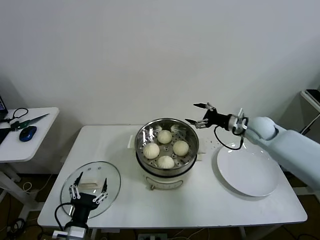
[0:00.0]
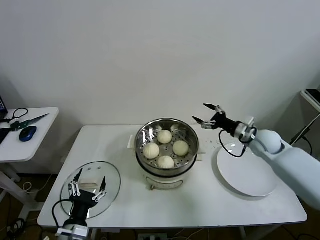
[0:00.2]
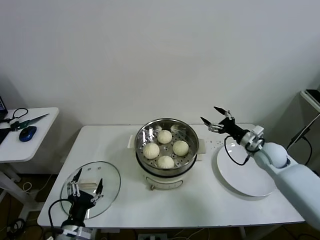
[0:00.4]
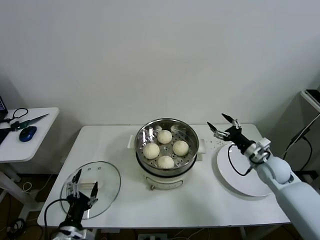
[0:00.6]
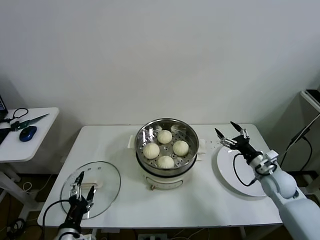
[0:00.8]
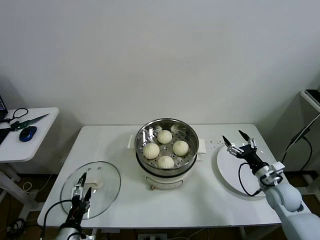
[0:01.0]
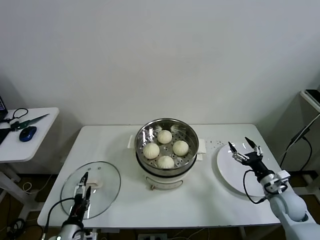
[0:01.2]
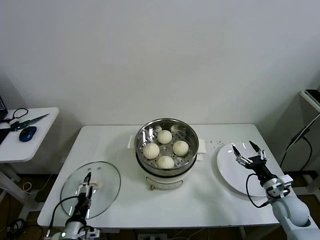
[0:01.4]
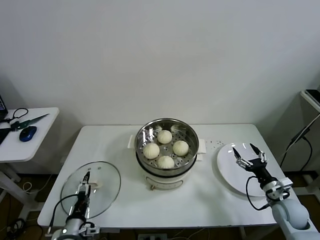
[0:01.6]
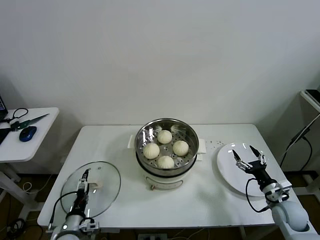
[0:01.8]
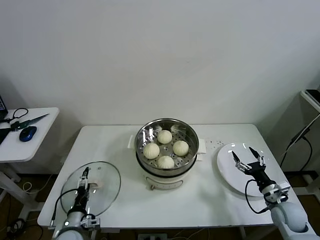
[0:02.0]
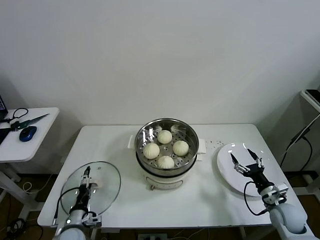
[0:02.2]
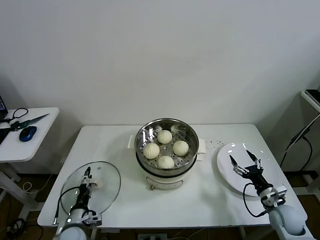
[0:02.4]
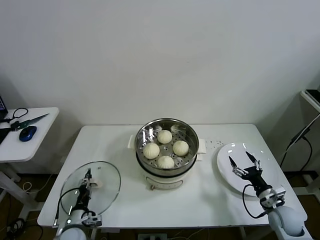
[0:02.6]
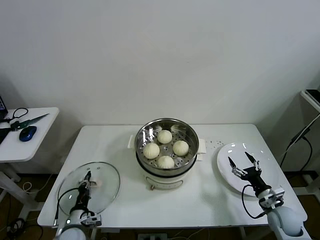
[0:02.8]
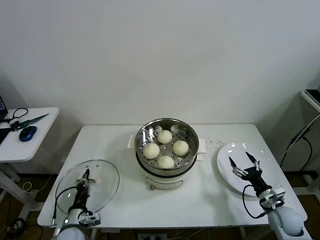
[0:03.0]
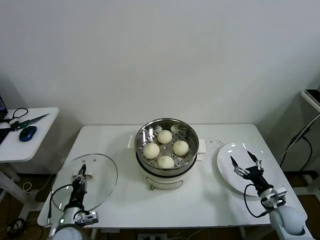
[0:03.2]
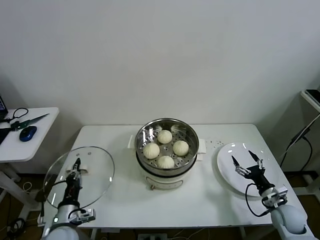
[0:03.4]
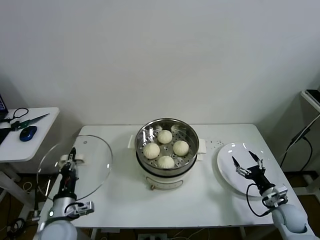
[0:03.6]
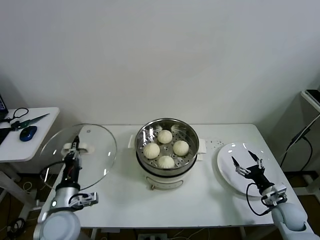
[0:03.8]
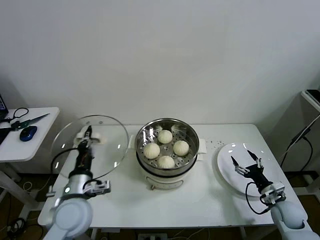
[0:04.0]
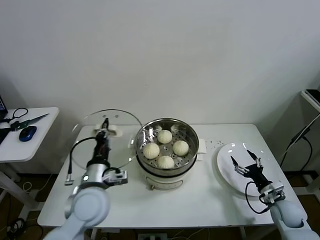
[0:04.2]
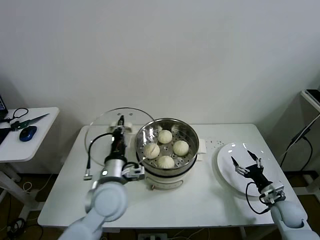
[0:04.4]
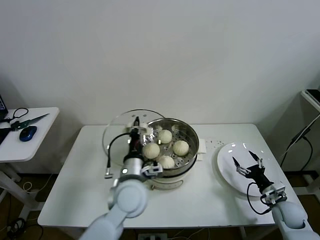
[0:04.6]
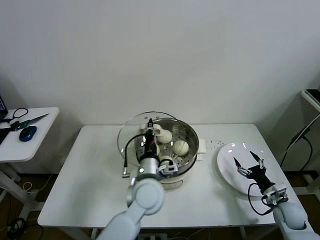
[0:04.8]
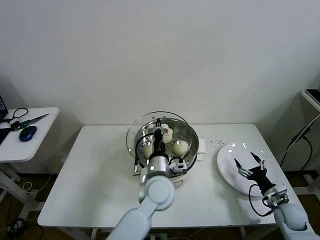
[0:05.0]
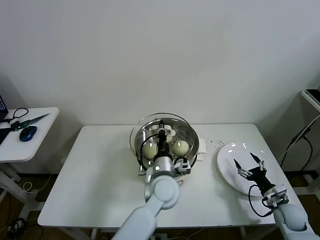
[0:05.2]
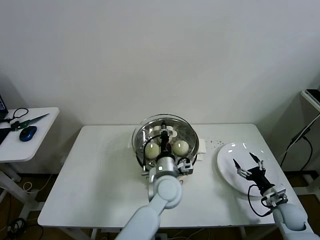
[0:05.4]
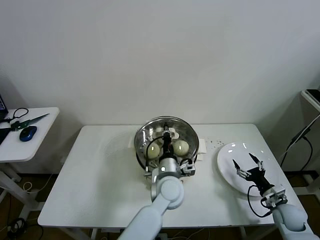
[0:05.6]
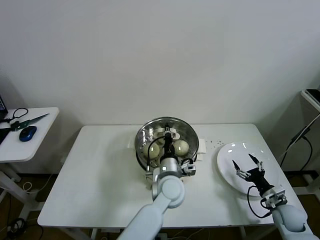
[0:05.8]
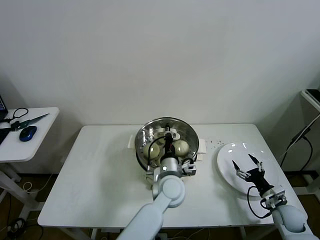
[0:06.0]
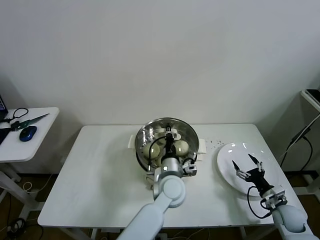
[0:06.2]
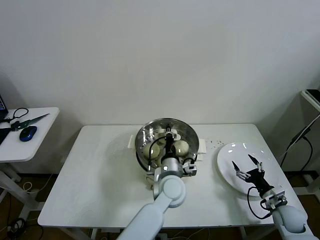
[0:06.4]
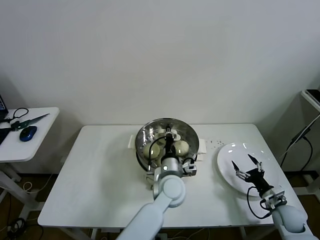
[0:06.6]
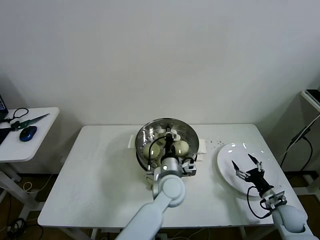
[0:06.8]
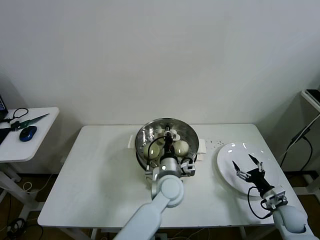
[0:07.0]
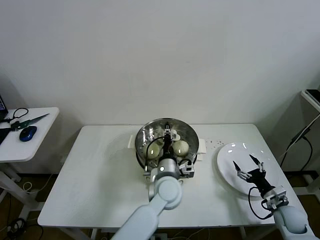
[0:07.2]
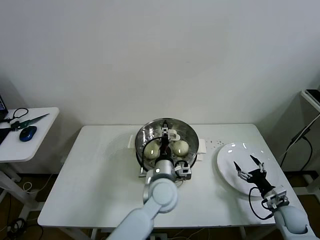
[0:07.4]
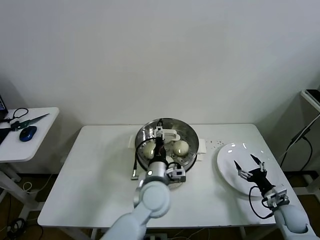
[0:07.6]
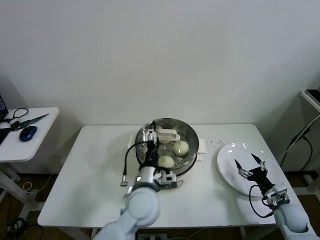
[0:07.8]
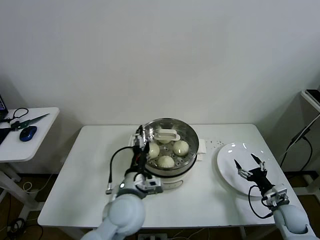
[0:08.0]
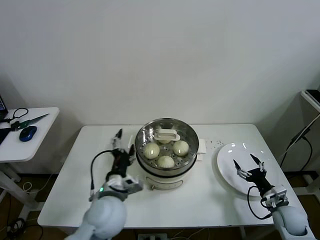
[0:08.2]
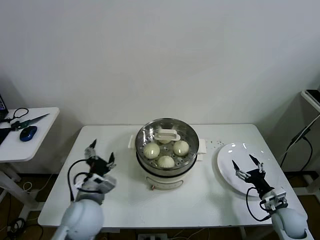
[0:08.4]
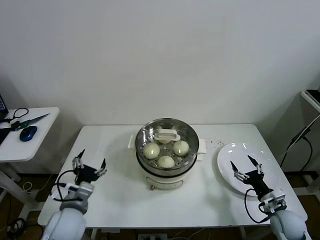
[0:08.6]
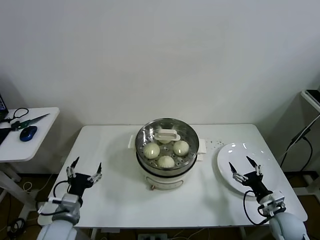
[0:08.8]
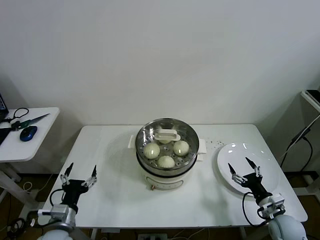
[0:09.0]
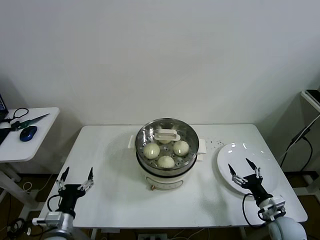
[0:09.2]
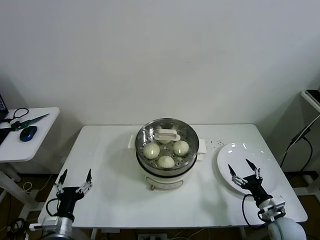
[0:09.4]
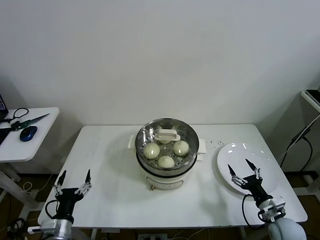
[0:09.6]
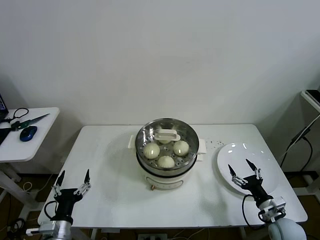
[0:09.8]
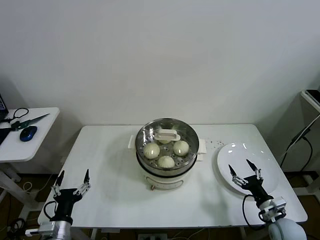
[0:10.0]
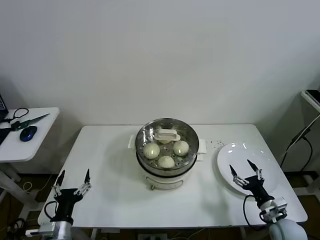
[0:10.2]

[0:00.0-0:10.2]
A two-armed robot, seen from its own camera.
Task of the whole recording: take steamed baozi put them in steamer then cover it.
Step, 0:00.0 to 0:02.8: Grasp the pot lid with left gripper.
Step, 0:03.0 to 0:07.0: Place the pot lid on the steamer with left gripper.
0:00.0 to 0:01.4: The right gripper goes about 25 cm backward and downward. The left gripper travels downward by about 5 cm.
0:01.4 to 0:03.0: The left gripper heads forward, covering roughly 5 cm, and closes.
0:03.0 to 0:04.4: The left gripper travels upward and to the right by about 30 cm.
0:04.4 to 0:05.8: The left gripper travels to the right and downward by about 20 cm.
0:05.8 to 0:07.2: Both grippers stay about where they are.
0:07.2 to 0:08.8: The left gripper moves to the left, roughly 30 cm, and opens its fingers.
0:08.8 to 0:10.2: The left gripper travels backward by roughly 5 cm.

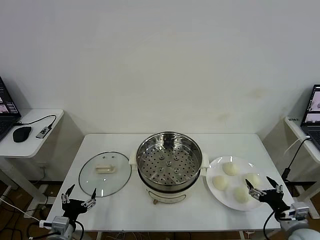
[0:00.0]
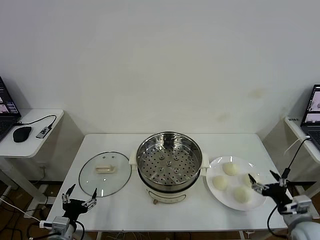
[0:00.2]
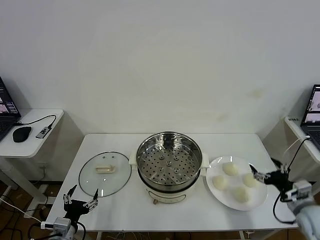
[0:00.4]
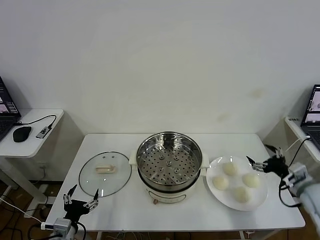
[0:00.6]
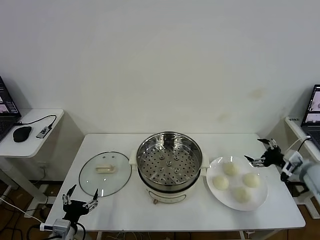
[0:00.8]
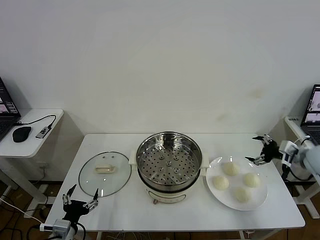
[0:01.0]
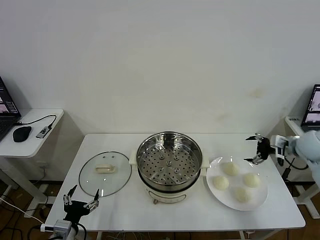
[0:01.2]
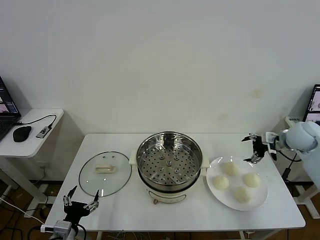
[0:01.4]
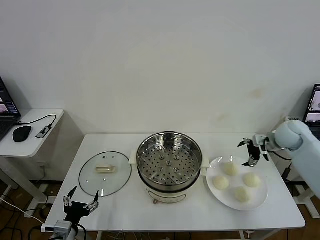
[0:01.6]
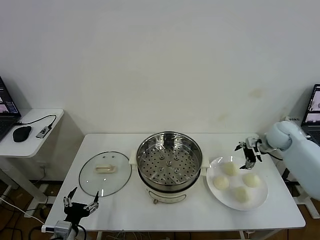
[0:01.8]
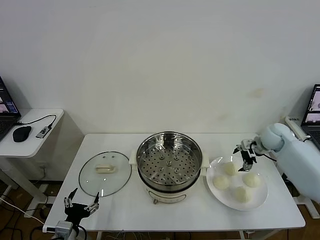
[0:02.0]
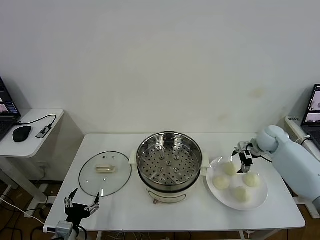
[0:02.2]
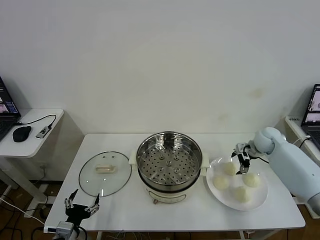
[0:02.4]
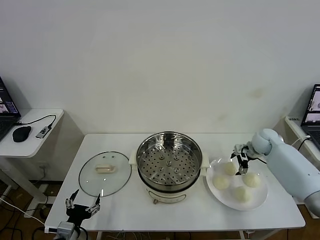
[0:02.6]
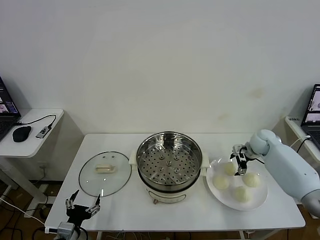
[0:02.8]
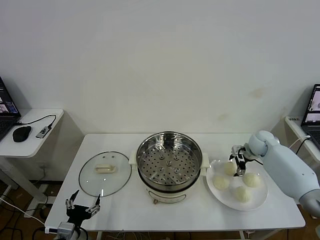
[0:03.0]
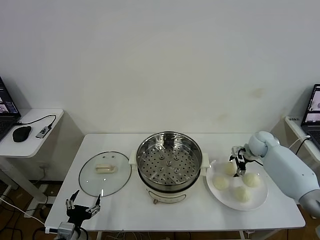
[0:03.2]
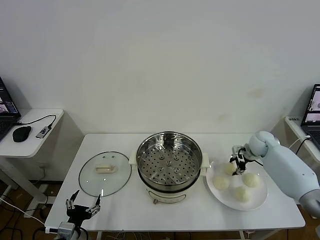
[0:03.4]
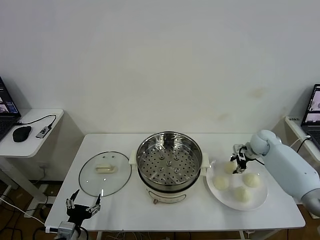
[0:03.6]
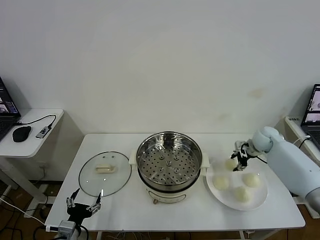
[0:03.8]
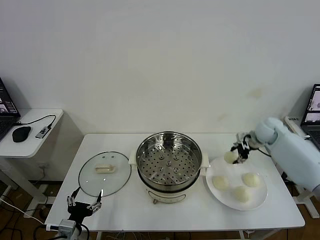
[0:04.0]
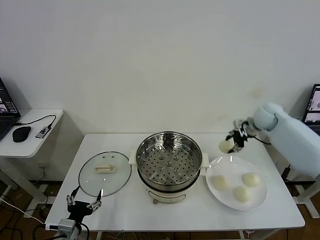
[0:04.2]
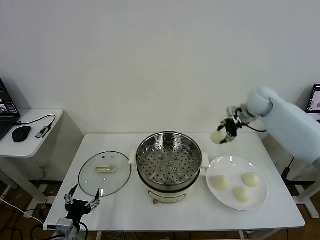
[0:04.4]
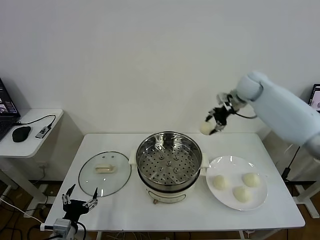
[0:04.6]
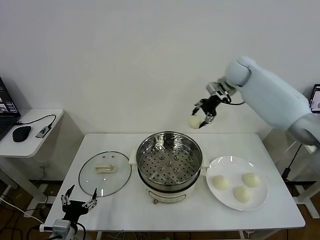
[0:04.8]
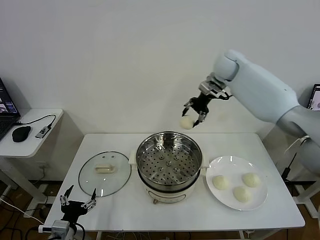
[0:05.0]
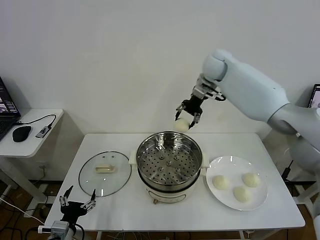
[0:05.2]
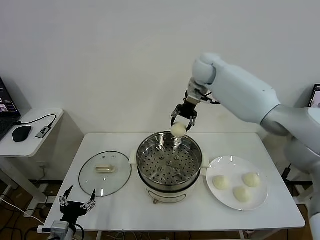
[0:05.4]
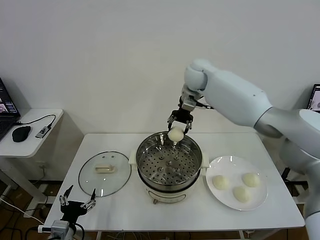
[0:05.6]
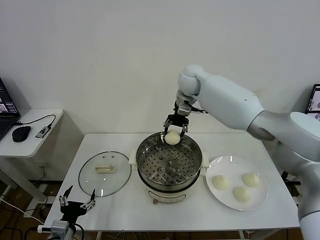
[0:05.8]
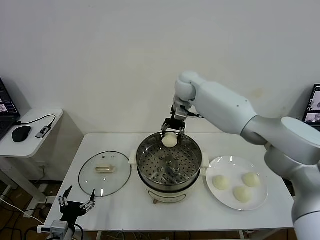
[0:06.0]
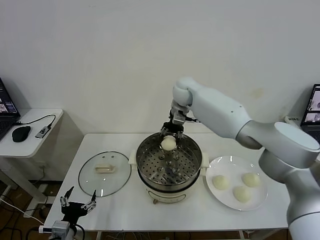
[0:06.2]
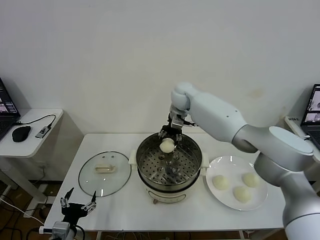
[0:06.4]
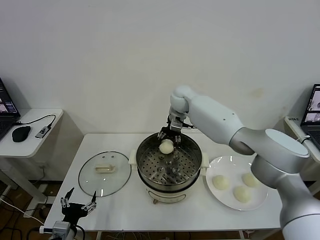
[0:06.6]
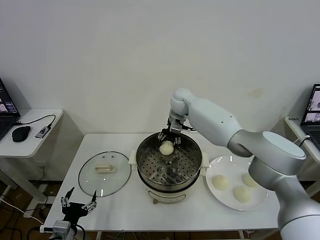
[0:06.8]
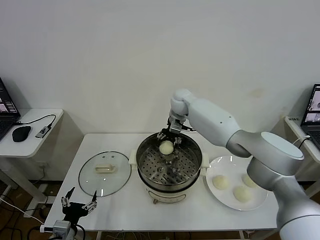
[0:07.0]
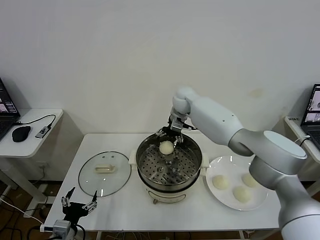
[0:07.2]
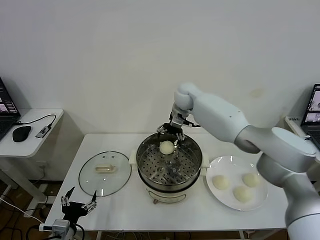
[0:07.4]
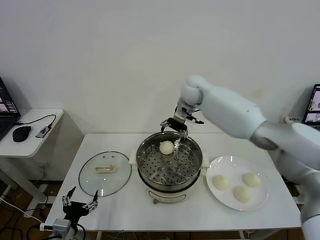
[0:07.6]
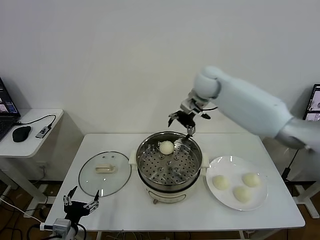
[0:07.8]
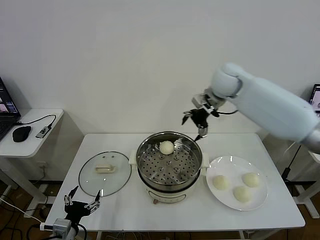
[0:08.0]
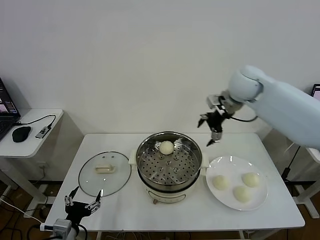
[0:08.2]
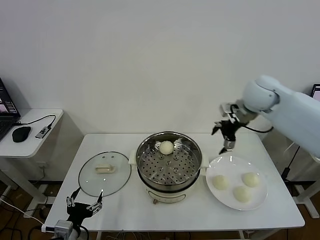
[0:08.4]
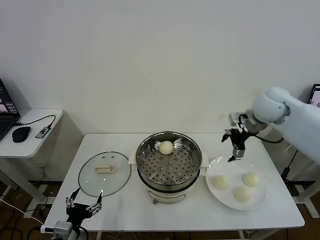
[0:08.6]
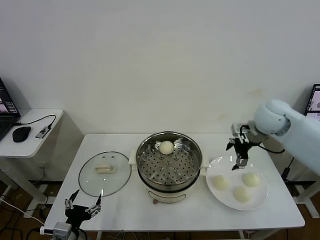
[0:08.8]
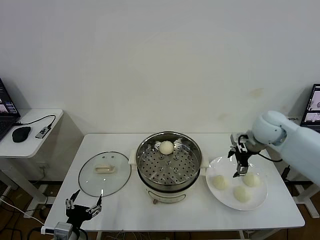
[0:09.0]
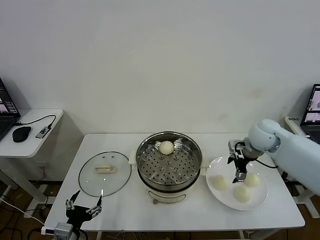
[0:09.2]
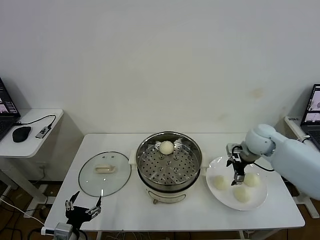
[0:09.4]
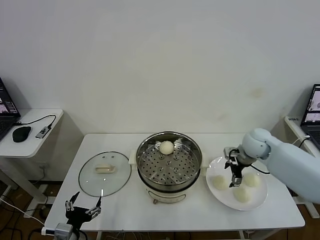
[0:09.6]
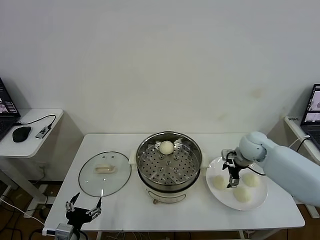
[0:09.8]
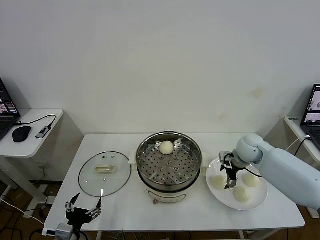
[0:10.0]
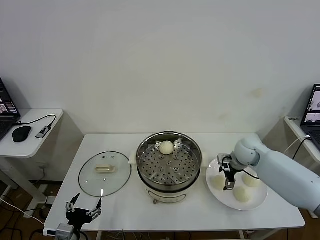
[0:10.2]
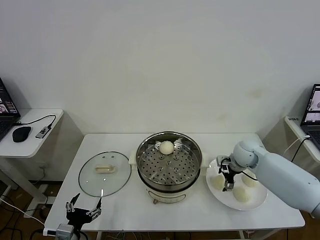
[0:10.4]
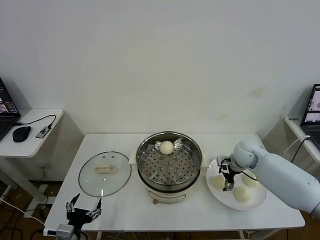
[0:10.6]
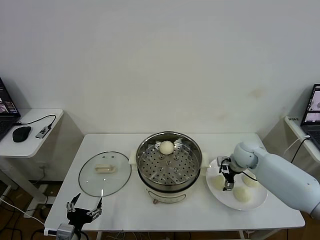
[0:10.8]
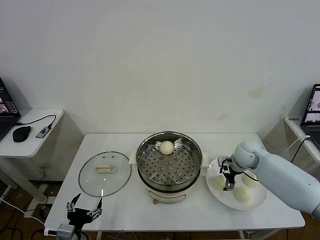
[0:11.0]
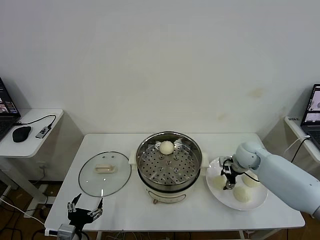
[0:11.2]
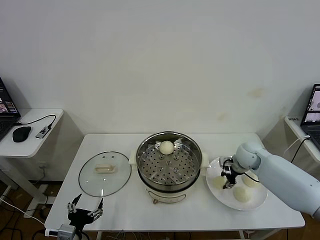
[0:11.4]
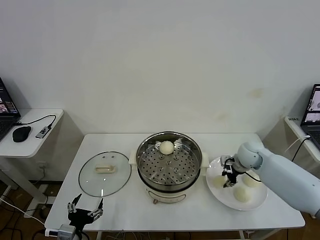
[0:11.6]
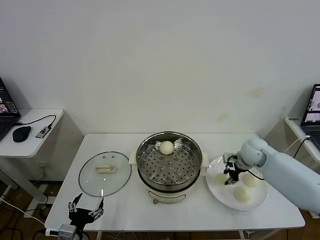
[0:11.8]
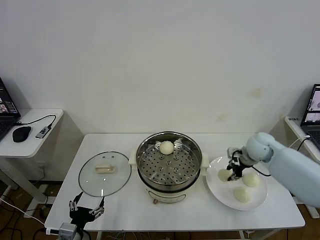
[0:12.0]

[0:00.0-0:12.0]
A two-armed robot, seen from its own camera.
Task of the whole recording: take steamed baozi put them in steamer then cover it.
Step, 0:00.0 to 0:03.6: Grasp the baozi in the plate with right gripper.
Step, 0:03.8 to 0:07.2: Place the baozi on the steamer with right gripper.
Step, 0:07.4 to 0:11.4: Grasp the baozi in the plate with right gripper.
0:01.6 to 0:03.0: The right gripper travels downward by about 10 cm.
0:03.0 to 0:04.4: The right gripper is displaced upward and to the left by about 20 cm, and closes its fingers.
0:04.4 to 0:06.0: The right gripper goes about 25 cm to the left.
0:06.0 to 0:07.6: The right gripper goes about 5 cm to the right, and opens.
0:07.6 to 0:09.0: The right gripper goes some 25 cm to the right, backward and downward.
0:09.0 to 0:10.4: The right gripper travels downward by approximately 10 cm.
0:10.4 to 0:12.0: The right gripper shifts approximately 5 cm upward, and closes.
